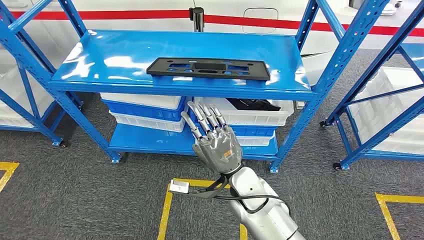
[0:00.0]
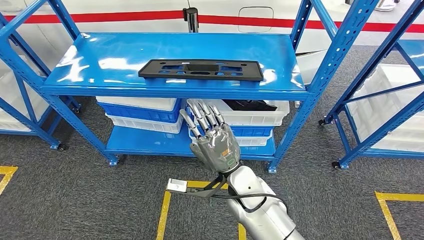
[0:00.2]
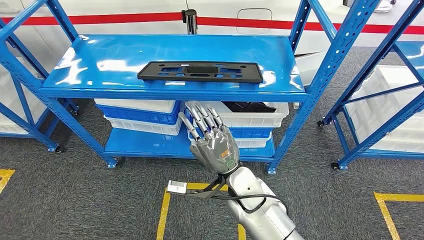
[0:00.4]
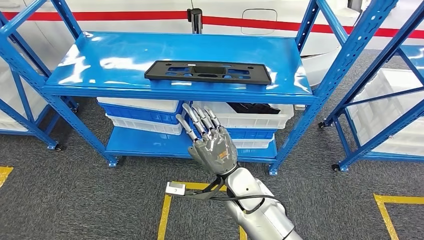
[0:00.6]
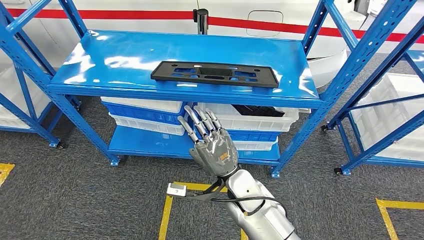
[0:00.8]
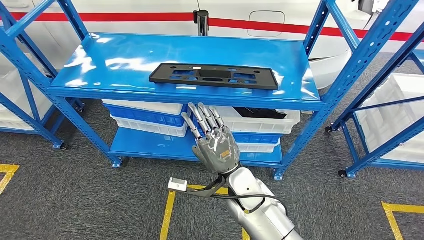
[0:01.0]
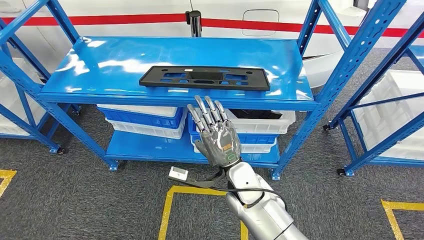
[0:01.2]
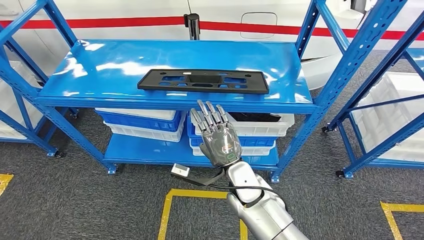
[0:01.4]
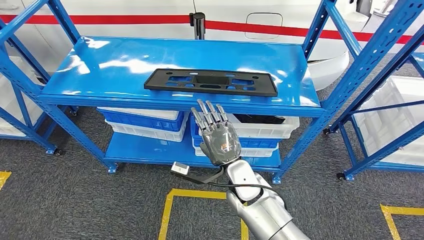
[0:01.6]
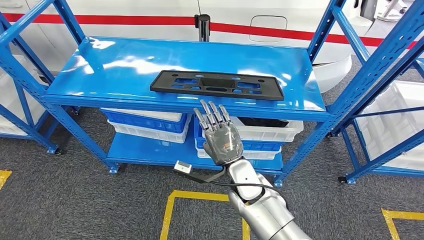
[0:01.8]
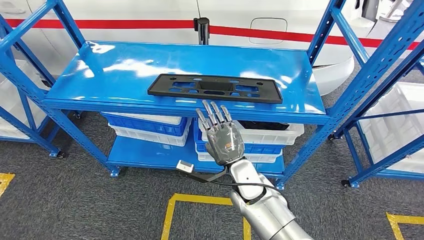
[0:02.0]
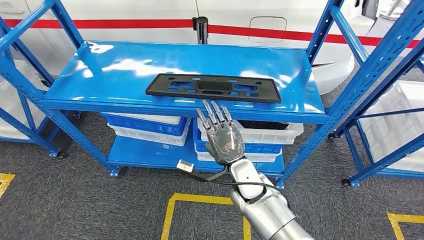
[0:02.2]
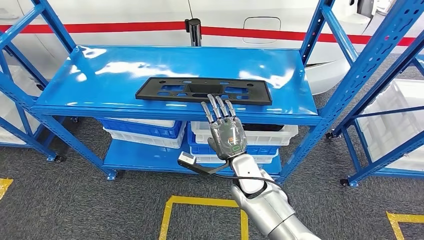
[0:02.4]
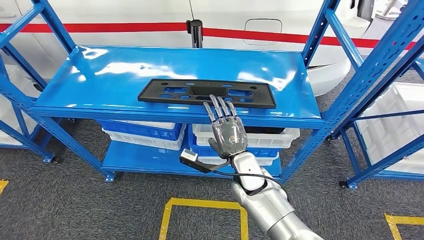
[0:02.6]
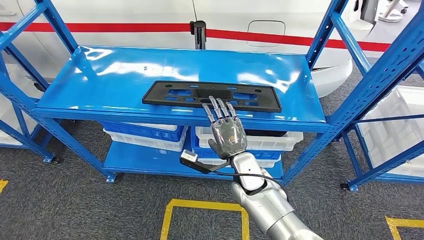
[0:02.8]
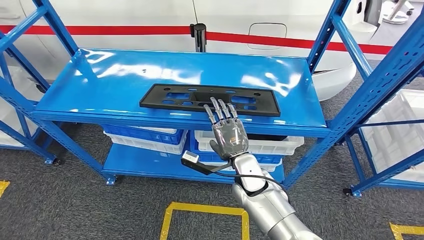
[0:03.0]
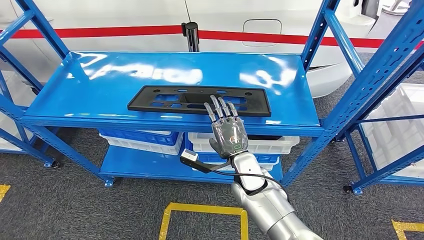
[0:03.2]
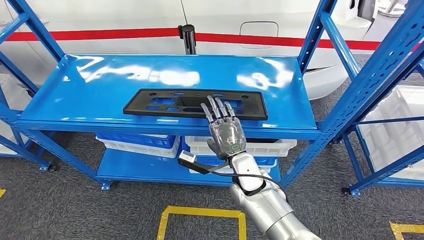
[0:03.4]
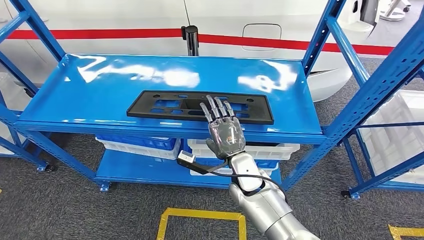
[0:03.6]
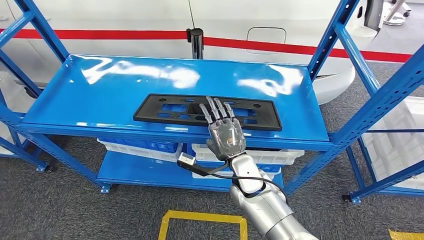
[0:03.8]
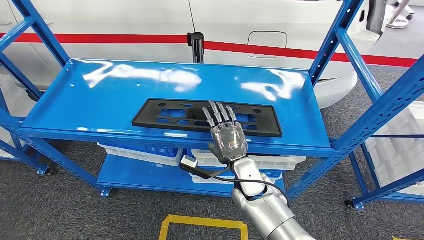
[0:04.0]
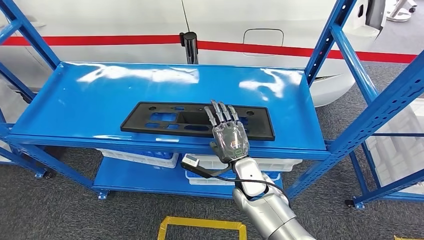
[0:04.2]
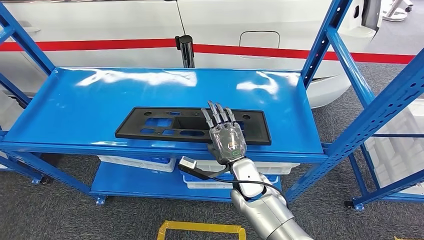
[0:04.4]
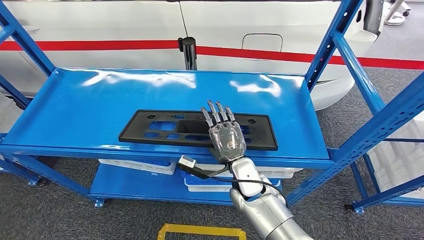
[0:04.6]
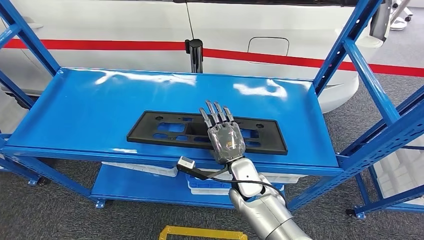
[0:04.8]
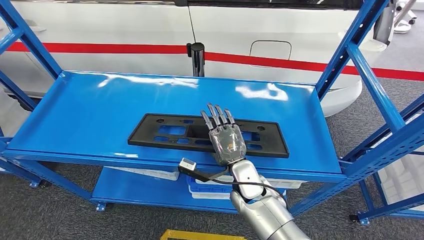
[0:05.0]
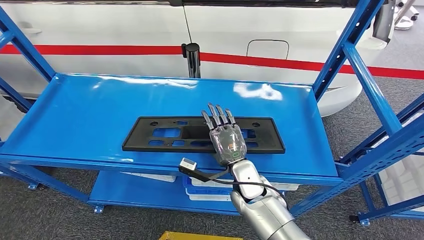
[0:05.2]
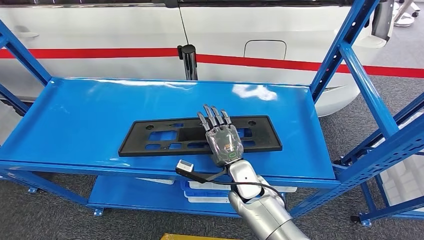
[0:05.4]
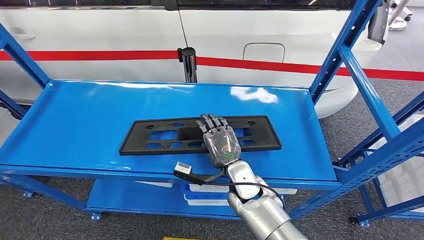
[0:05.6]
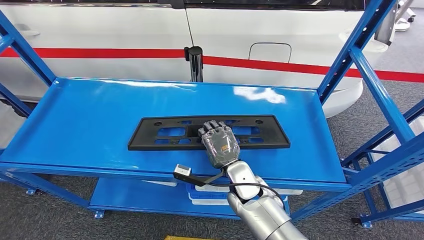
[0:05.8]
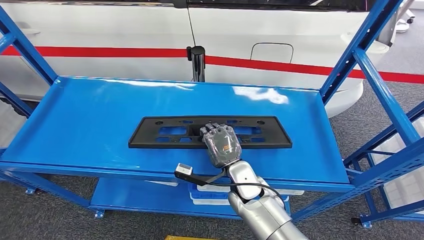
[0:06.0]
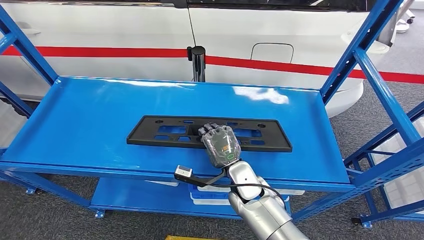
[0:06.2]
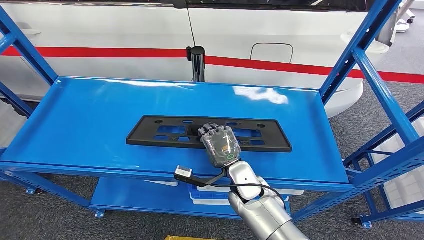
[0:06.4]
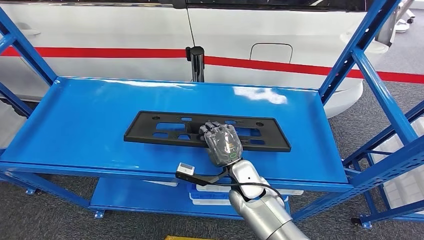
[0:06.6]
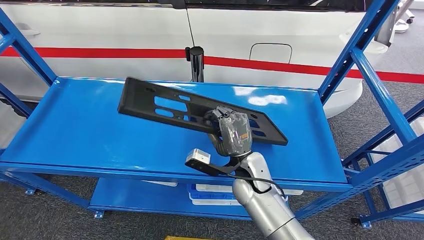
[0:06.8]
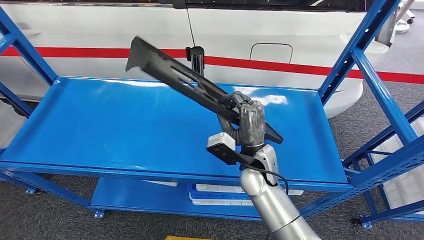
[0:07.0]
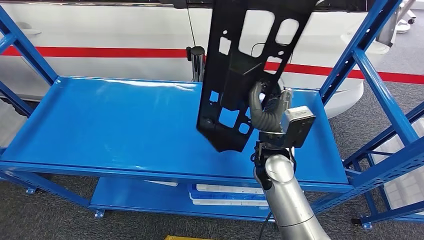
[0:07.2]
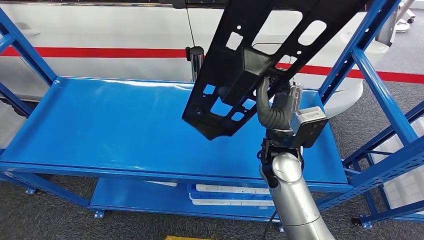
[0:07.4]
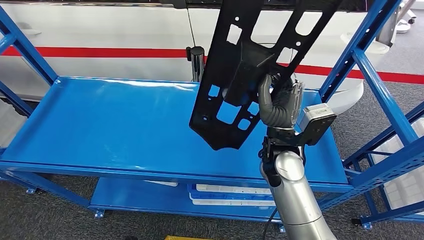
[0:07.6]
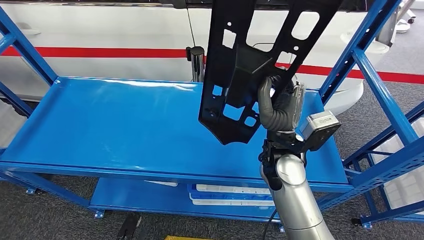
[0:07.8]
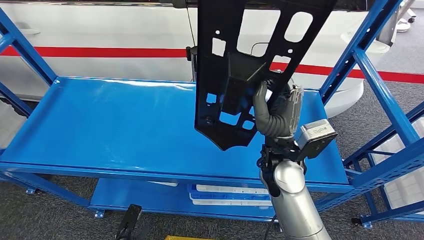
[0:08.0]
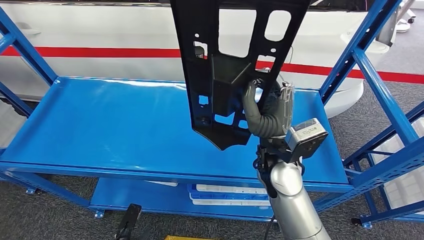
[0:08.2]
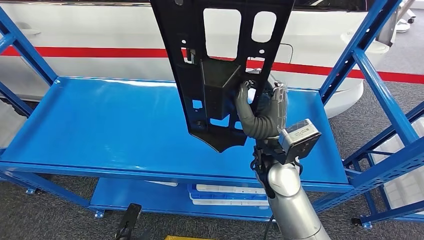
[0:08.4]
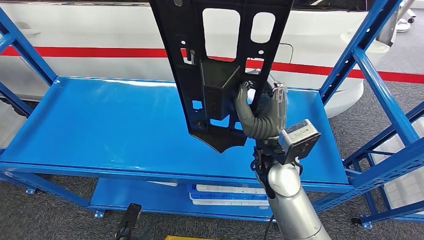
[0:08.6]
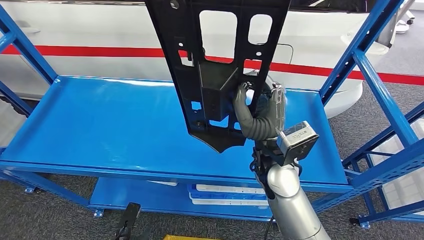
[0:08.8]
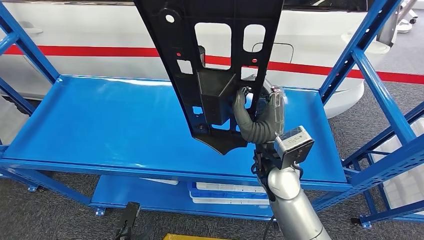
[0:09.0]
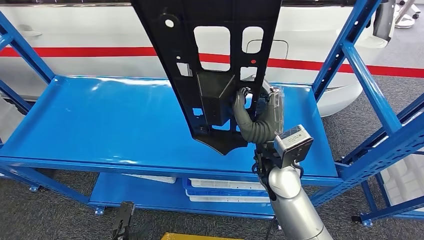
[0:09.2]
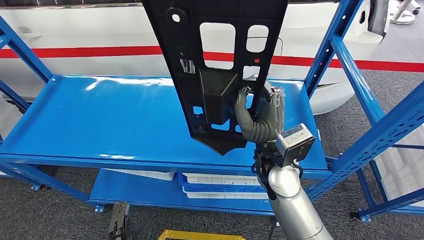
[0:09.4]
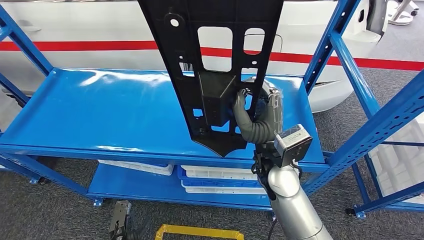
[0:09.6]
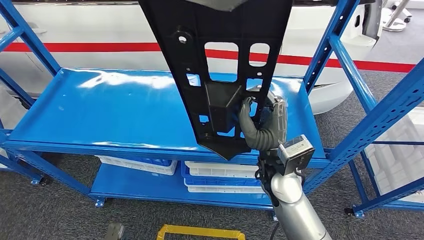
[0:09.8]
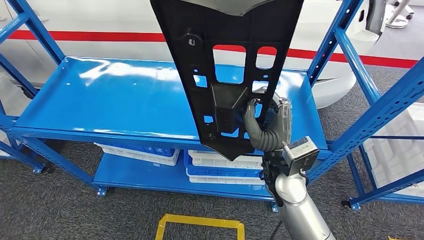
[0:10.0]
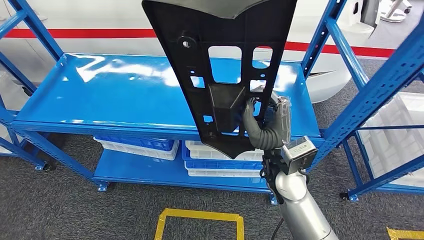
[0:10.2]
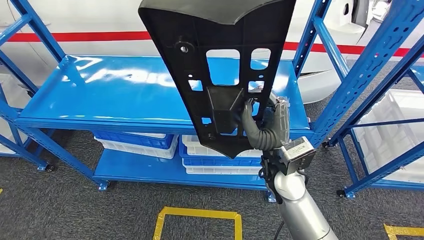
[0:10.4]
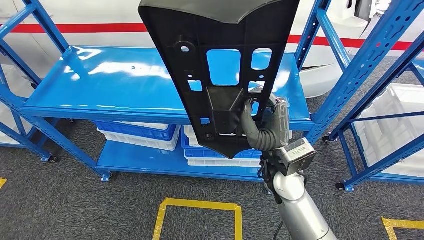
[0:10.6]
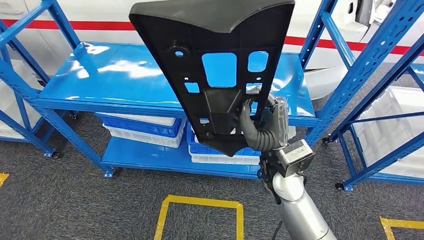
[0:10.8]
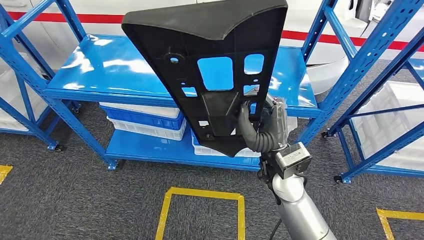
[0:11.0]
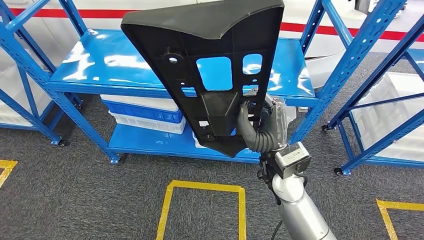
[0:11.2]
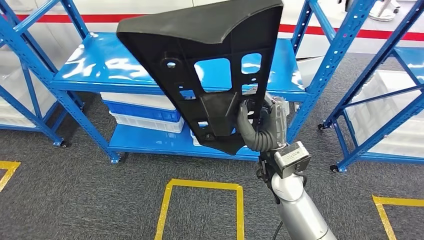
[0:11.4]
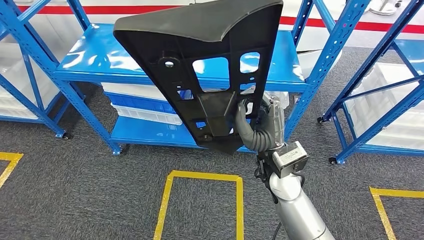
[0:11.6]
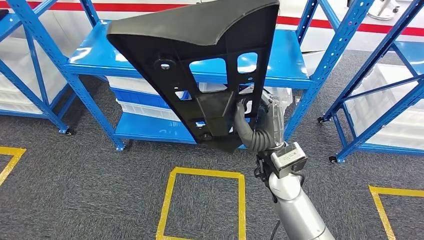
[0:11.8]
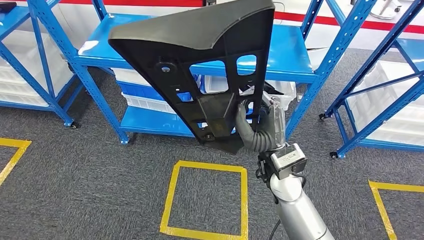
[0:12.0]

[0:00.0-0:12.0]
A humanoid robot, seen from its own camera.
Step, 0:00.0 to 0:10.4: Pick up the large material from the shelf.

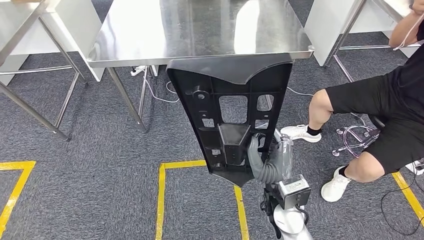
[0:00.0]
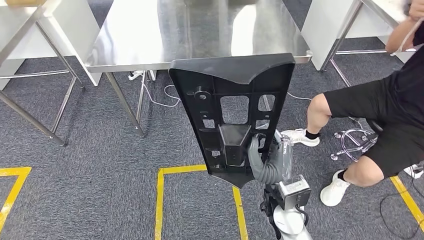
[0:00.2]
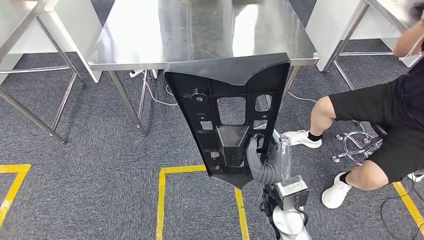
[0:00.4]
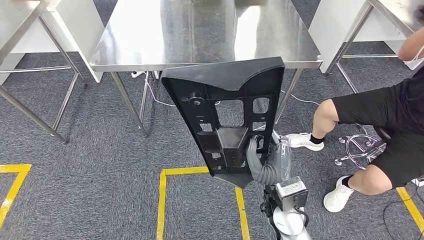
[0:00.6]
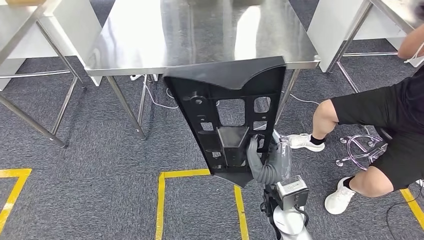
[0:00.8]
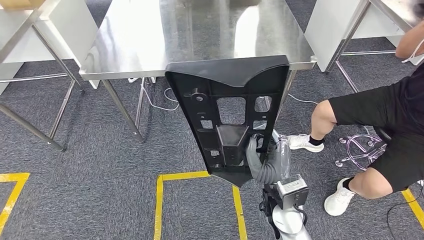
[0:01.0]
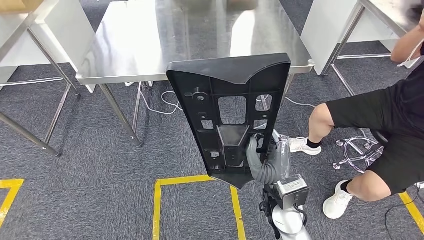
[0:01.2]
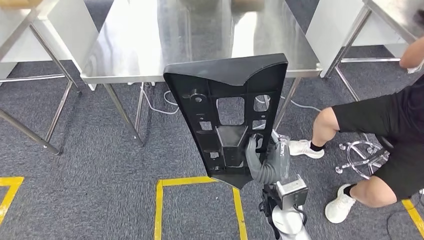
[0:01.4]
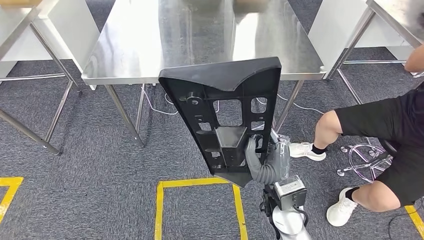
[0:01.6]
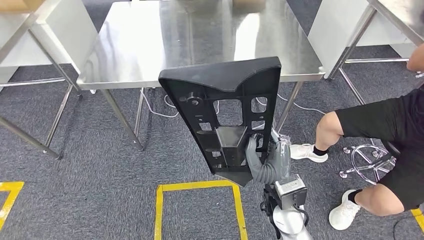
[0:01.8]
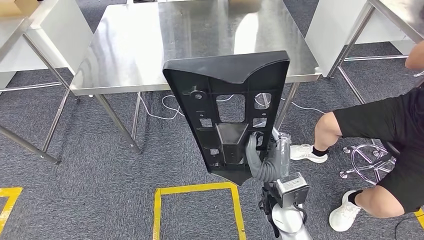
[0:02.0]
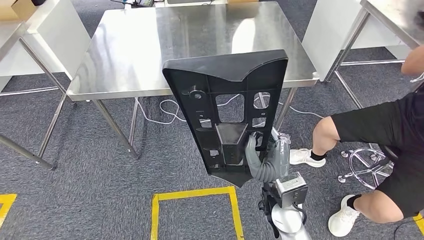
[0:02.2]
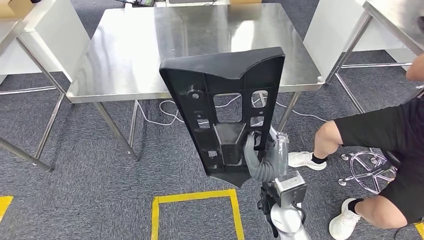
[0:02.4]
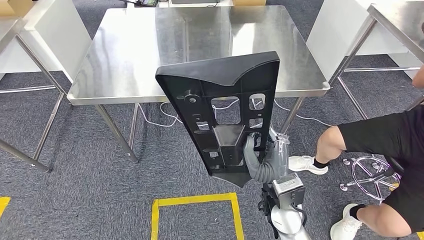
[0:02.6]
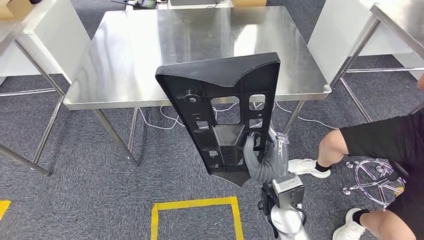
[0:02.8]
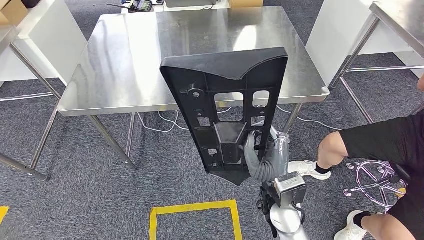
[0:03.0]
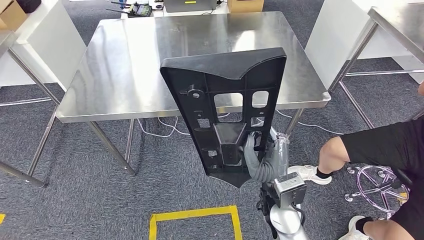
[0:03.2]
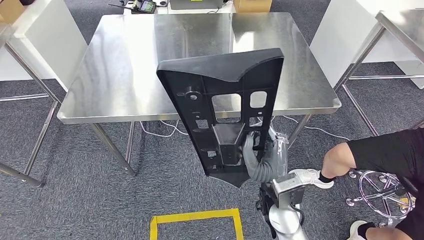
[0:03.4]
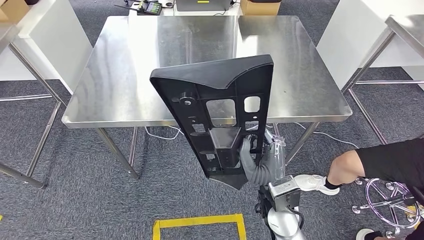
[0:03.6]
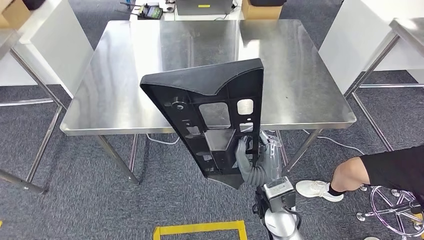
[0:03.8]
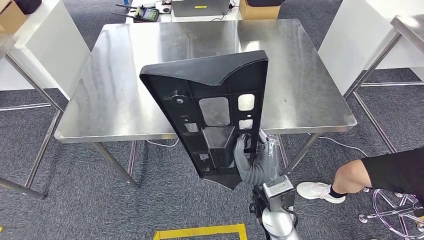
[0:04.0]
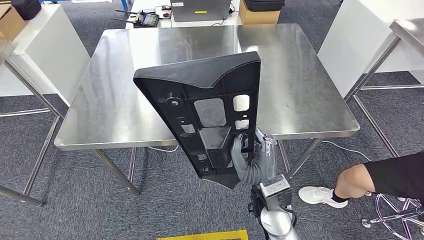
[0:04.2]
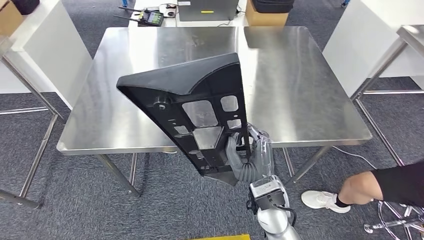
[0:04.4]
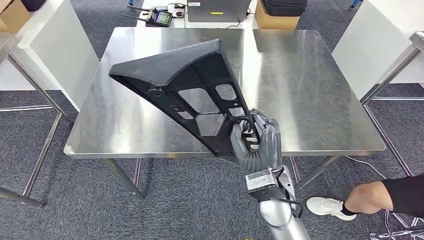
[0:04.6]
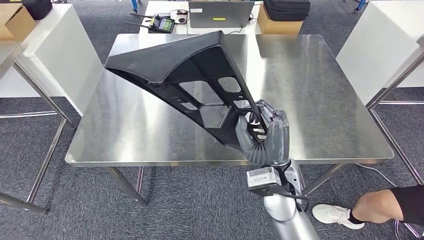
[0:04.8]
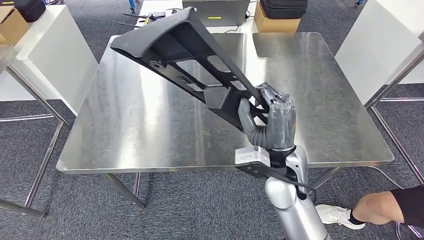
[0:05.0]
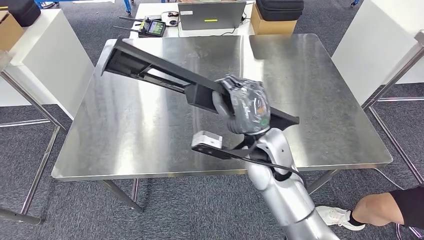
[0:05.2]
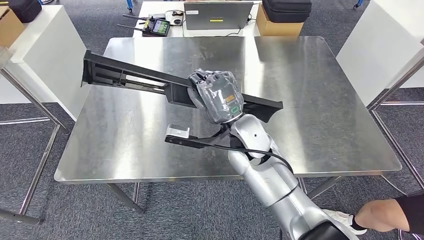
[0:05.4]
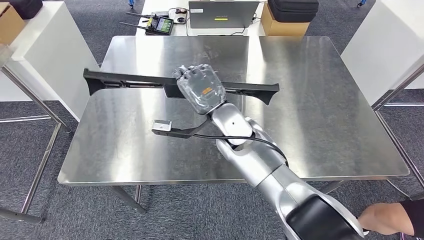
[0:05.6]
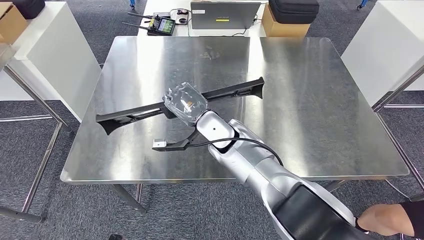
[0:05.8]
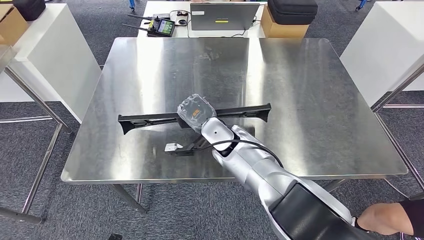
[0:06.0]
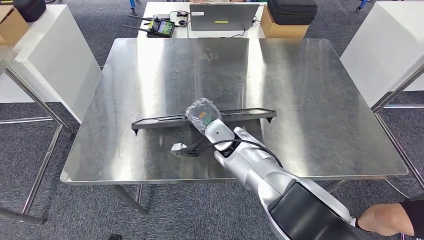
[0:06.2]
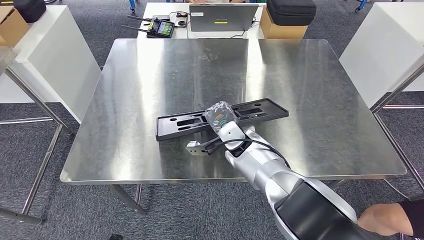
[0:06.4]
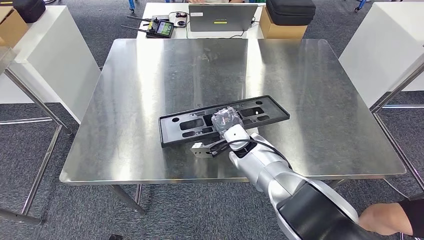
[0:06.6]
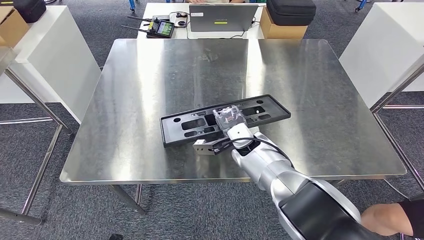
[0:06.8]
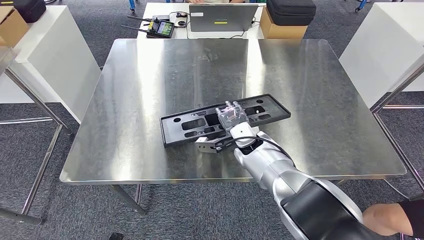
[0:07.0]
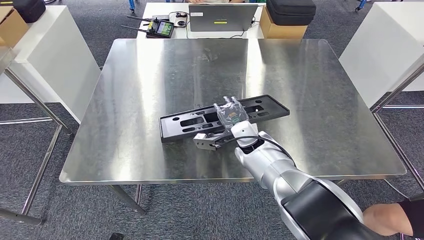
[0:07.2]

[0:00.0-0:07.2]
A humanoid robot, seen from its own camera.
Step, 0:00.0 to 0:03.8: Move the large material to the front of the workbench.
